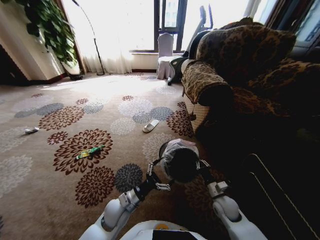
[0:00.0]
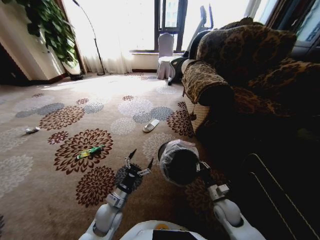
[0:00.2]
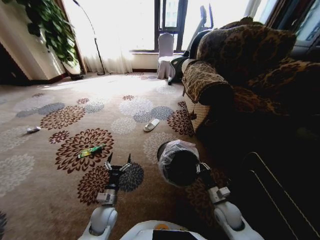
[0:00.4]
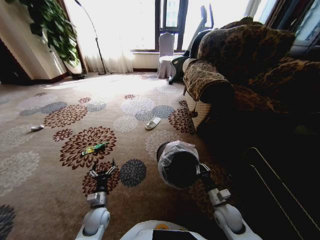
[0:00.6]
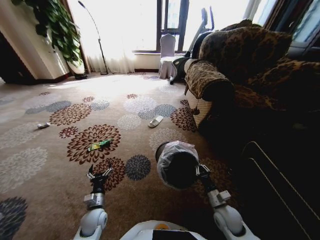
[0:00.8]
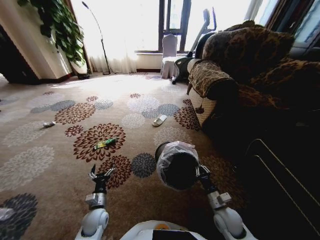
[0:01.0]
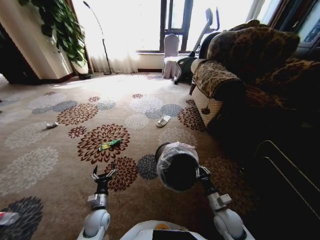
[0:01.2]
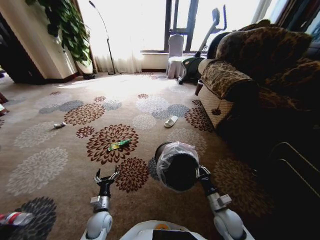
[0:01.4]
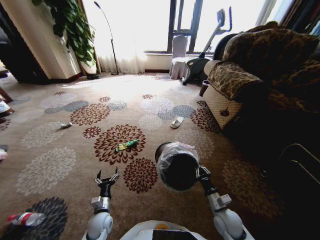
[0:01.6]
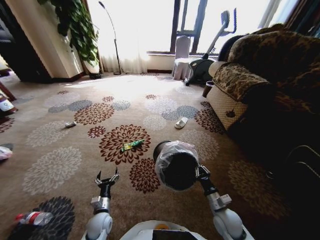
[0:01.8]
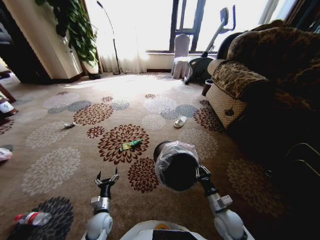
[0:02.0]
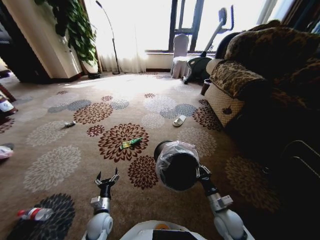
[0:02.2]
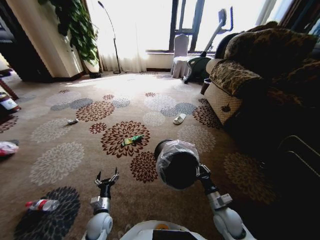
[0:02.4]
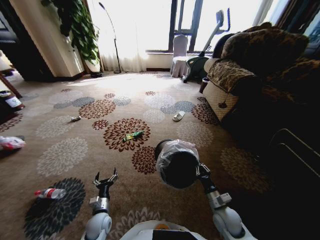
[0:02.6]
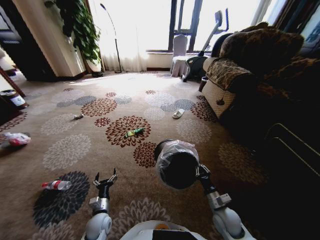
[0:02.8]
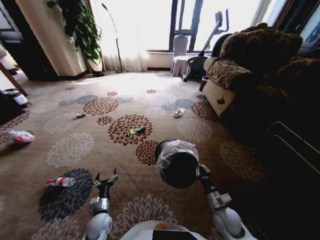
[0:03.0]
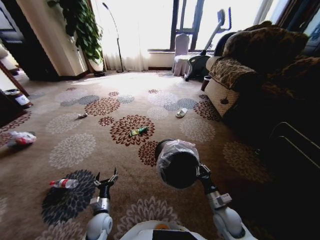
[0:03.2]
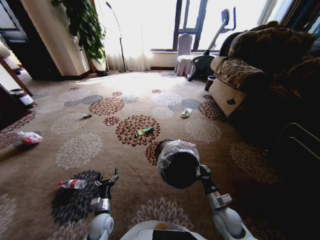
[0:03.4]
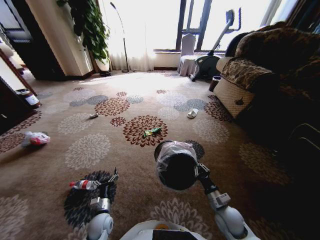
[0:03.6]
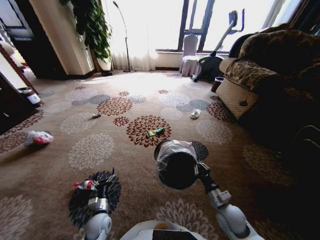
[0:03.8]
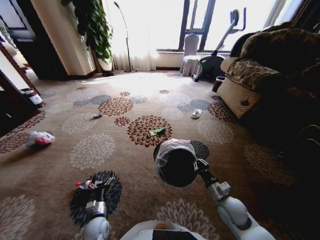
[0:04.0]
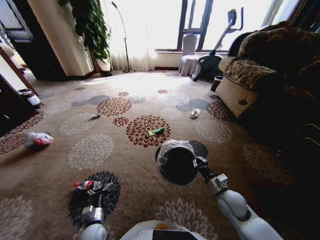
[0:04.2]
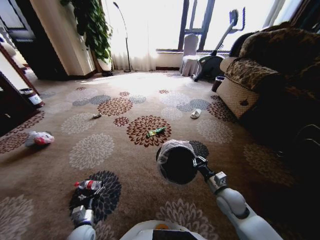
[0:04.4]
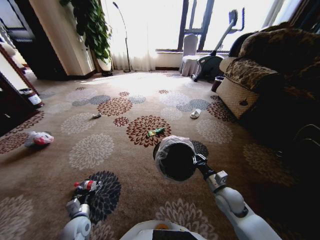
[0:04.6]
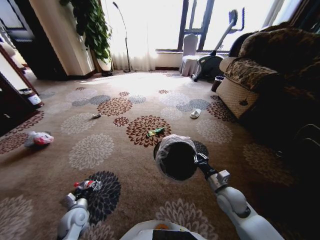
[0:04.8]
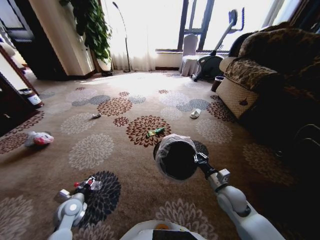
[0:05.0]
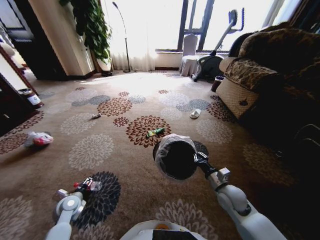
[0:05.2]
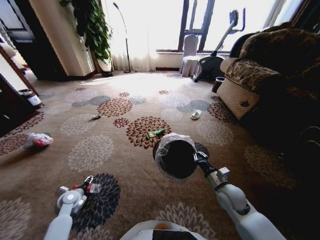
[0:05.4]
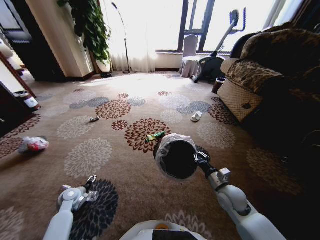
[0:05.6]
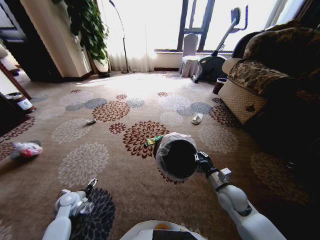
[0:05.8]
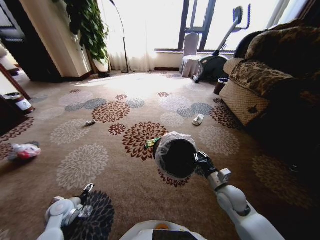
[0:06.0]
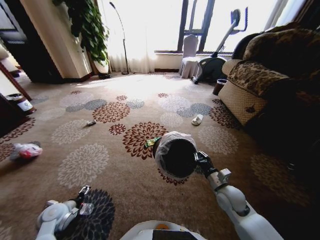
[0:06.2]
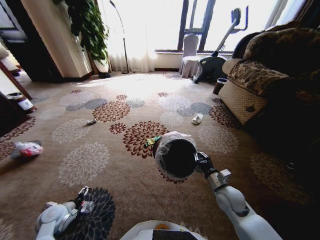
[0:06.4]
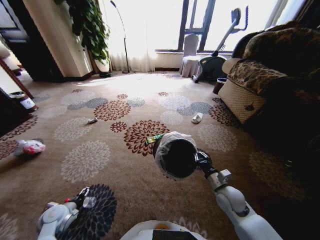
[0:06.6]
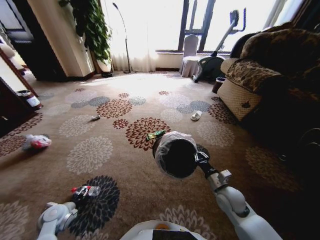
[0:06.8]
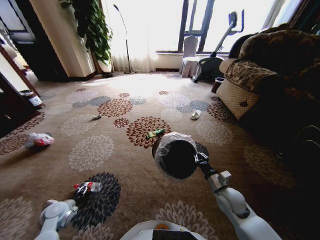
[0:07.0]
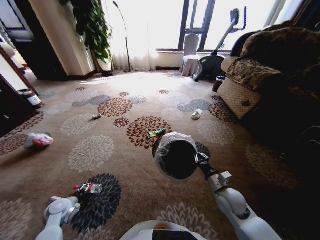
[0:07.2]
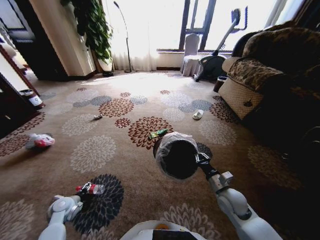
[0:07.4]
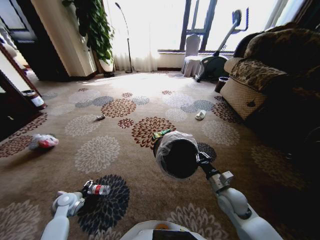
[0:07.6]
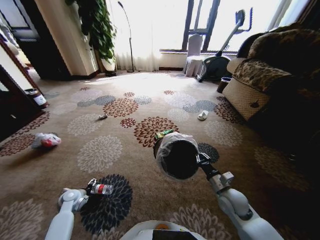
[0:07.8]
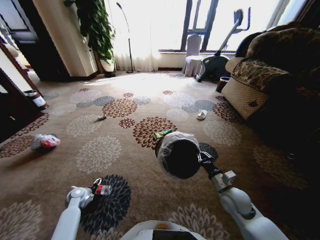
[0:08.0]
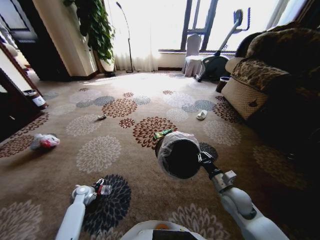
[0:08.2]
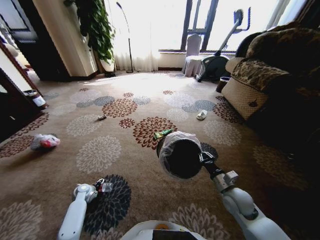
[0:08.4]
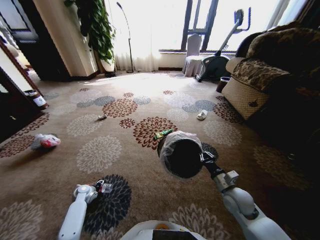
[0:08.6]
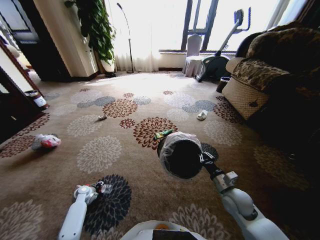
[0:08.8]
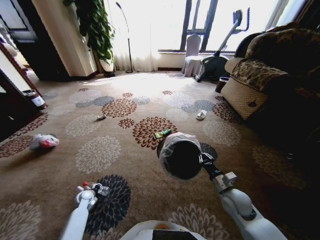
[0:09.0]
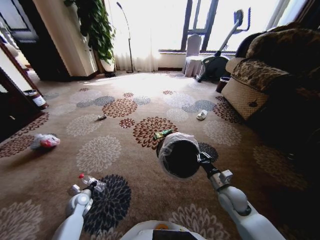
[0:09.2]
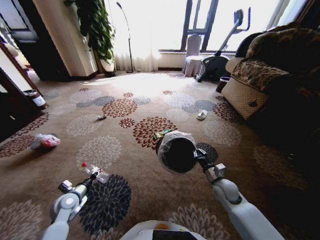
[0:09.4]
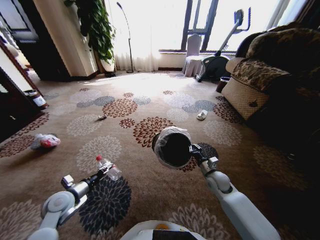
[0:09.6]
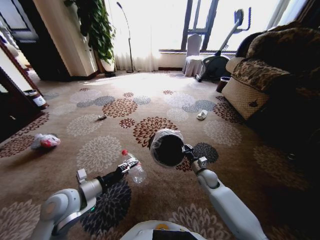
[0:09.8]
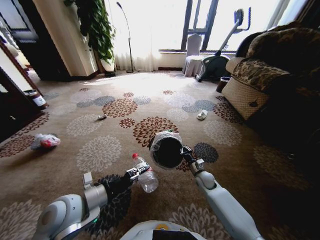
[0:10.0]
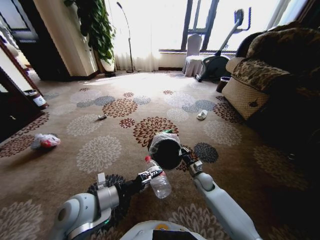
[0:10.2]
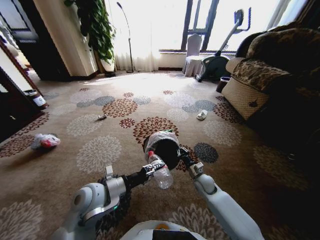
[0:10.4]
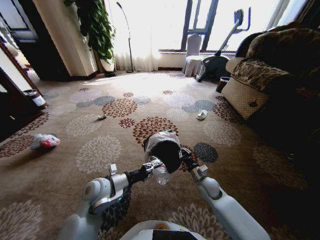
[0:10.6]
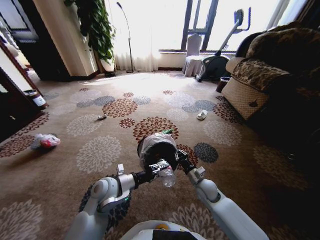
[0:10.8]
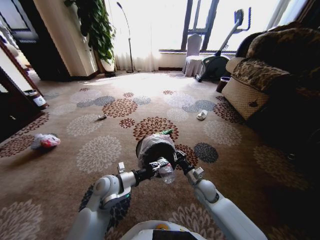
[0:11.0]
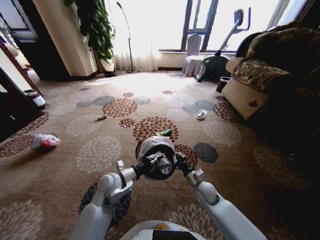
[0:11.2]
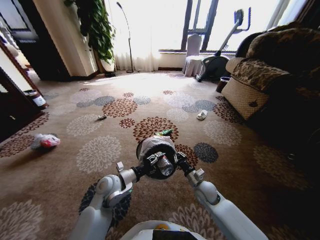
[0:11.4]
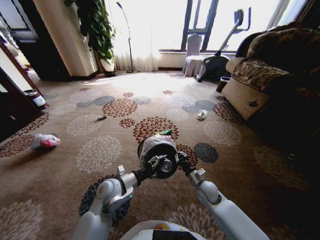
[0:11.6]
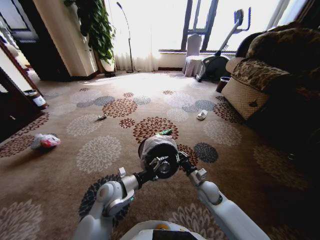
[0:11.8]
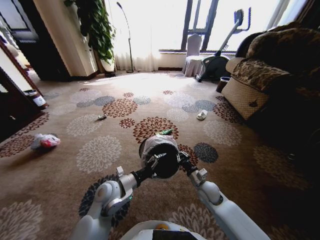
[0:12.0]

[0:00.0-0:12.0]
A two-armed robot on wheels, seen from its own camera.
Task of the whole recording: Pick up the trash from the ground and place it into the trash bin.
0:00.0 to 0:01.6: The left gripper travels to the left and downward by about 15 cm. The right gripper moves backward, roughly 5 cm.
0:03.0 to 0:04.4: The right gripper goes approximately 10 cm upward and forward. Meanwhile the left gripper changes place by about 5 cm.
0:04.4 to 0:06.0: The left gripper moves to the left, forward and upward, roughly 15 cm.
0:07.6 to 0:09.0: The left gripper goes approximately 10 cm downward, and closes its fingers.
0:09.0 to 0:10.4: The left gripper shifts about 35 cm upward and to the right, while the right gripper shifts about 15 cm forward, downward and to the left.
0:10.4 to 0:12.0: The left gripper travels downward by about 5 cm, and opens.

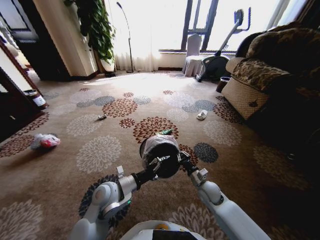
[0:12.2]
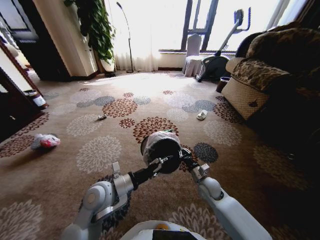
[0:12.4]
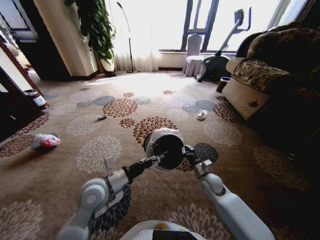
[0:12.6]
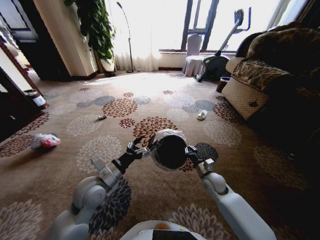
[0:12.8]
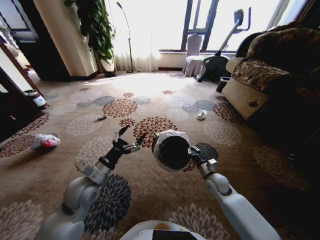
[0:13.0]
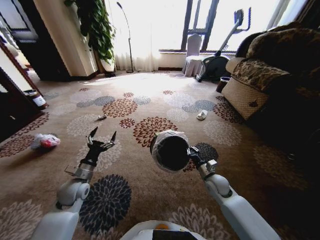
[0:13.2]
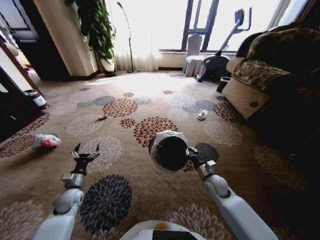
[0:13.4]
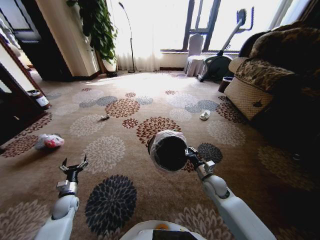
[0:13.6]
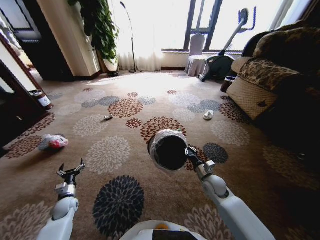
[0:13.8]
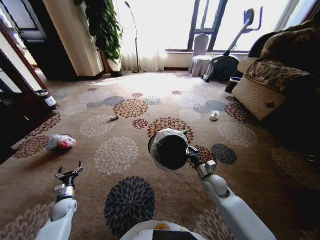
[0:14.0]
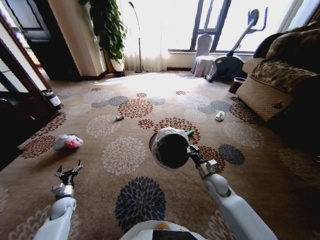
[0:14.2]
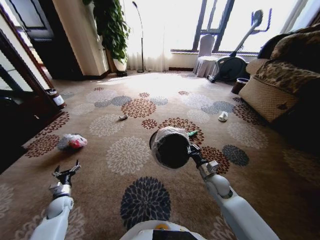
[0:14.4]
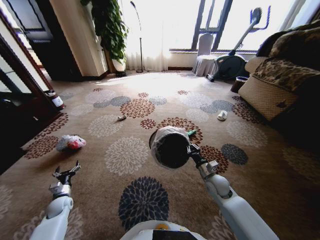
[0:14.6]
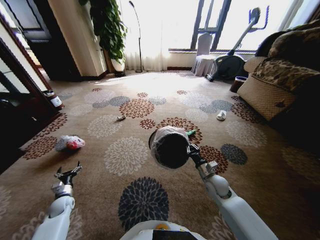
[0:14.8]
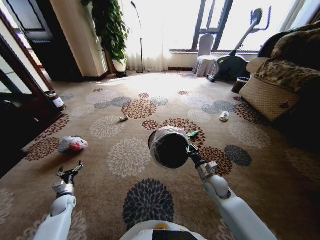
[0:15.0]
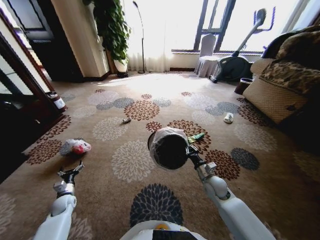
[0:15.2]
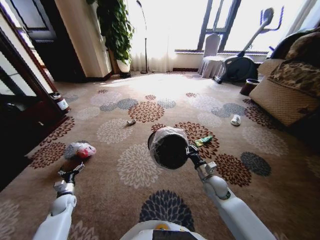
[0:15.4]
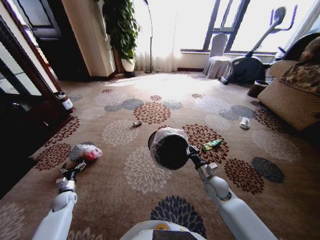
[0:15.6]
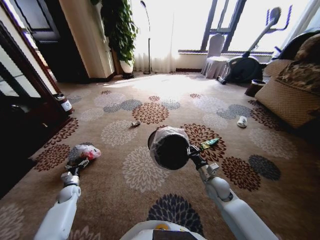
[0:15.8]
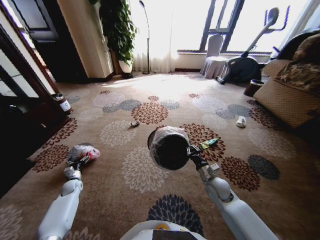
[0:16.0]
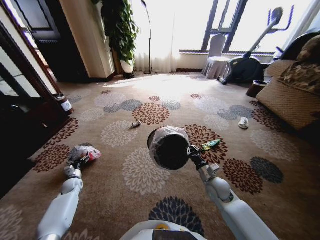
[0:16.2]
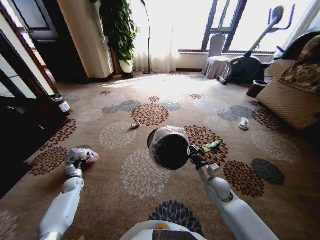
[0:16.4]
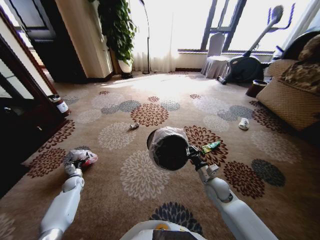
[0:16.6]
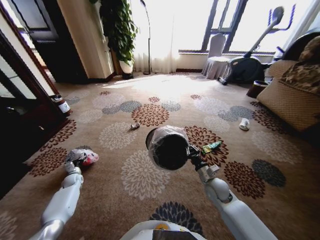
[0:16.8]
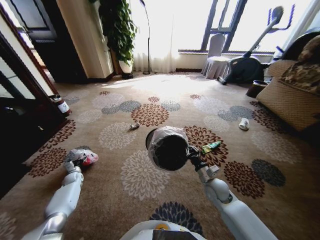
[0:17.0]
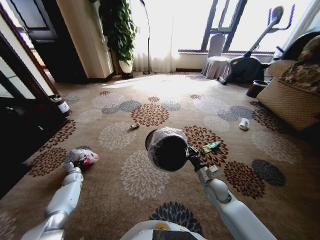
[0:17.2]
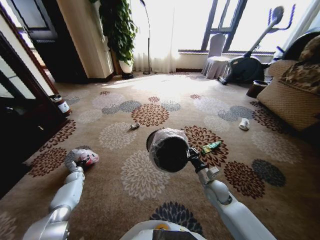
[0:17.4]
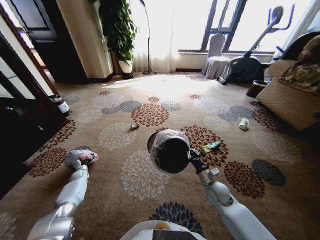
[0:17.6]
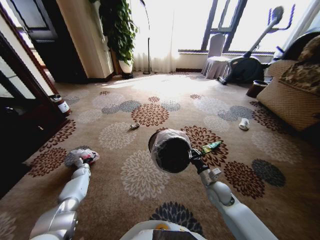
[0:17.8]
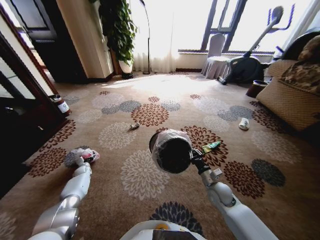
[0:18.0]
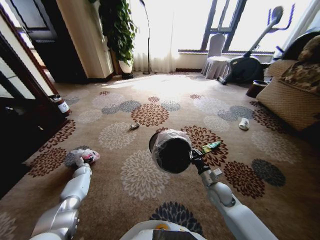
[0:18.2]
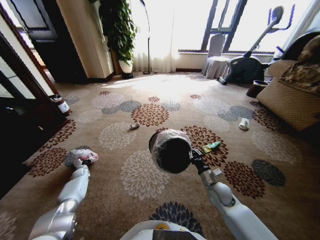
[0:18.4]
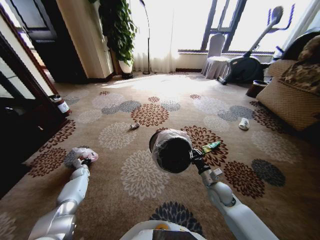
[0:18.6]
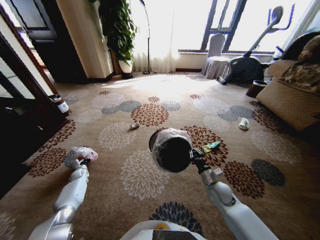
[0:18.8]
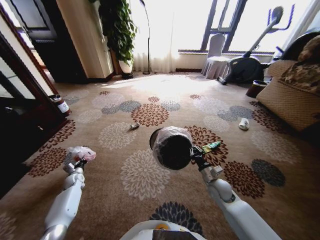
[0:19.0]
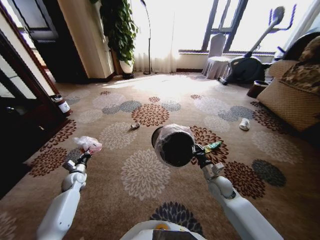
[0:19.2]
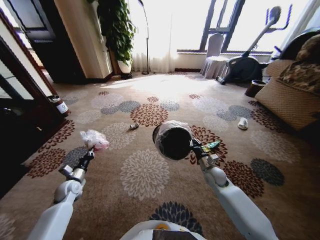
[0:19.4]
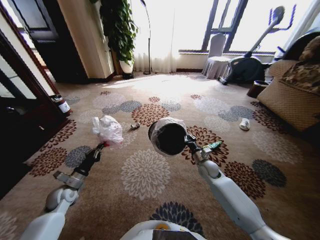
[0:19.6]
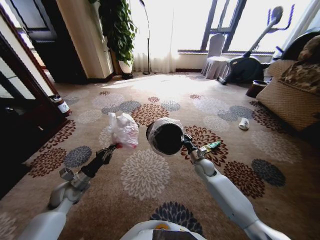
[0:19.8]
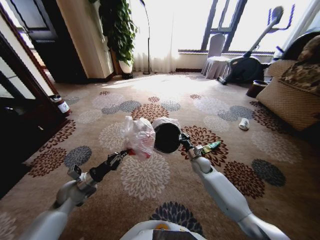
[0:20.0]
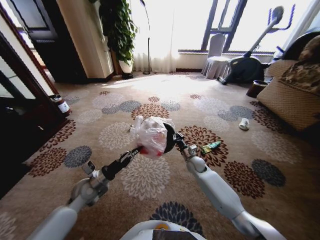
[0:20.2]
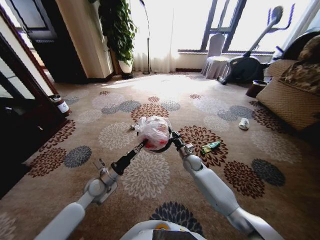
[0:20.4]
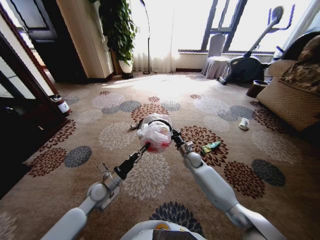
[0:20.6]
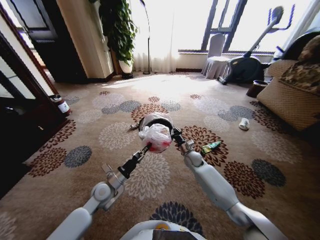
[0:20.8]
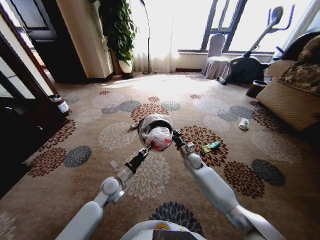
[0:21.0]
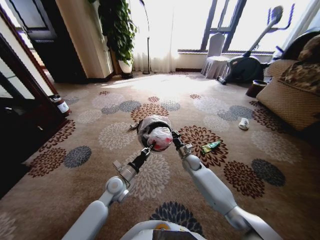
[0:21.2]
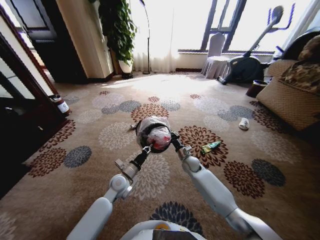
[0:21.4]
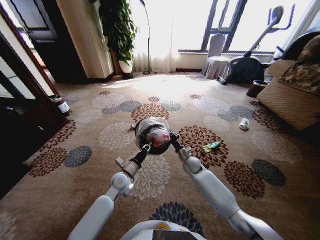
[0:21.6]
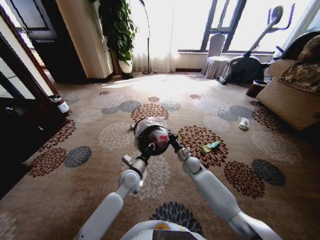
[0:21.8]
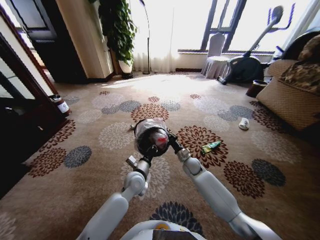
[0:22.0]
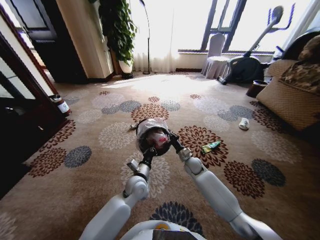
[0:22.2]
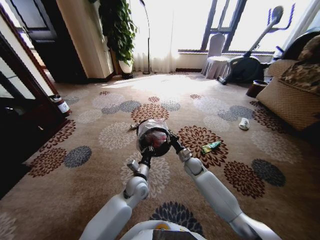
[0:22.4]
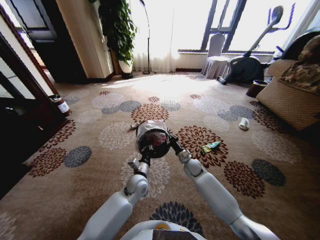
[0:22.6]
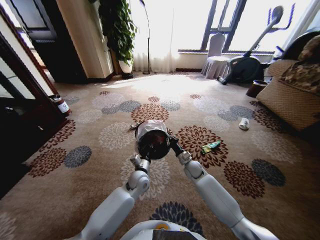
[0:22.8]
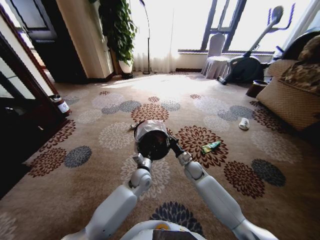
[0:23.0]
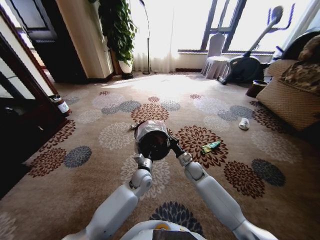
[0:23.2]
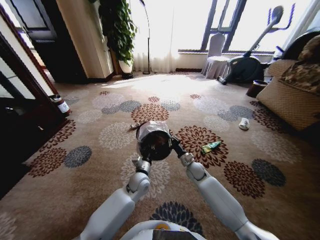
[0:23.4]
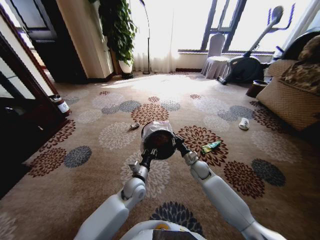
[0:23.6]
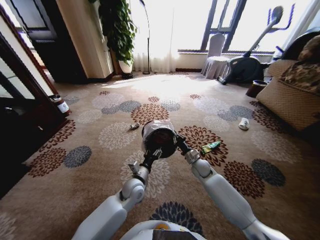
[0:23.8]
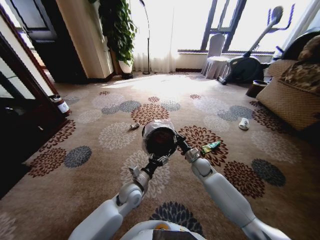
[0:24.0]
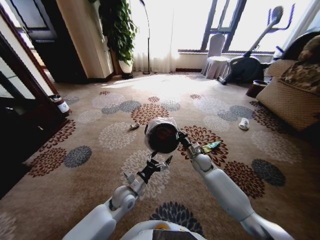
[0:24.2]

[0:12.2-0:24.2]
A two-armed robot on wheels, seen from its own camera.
Task of the whole recording: Pick up the trash from the ground and place it into the trash bin.
0:12.2 to 0:13.8: The left gripper travels to the left and downward by approximately 35 cm.
0:15.2 to 0:16.6: The left gripper shifts roughly 10 cm forward.
0:16.6 to 0:18.2: The left gripper travels forward by approximately 5 cm, and closes up.
0:18.2 to 0:19.8: The left gripper heads upward, backward and to the right, covering approximately 30 cm, and closes, while the right gripper shifts roughly 15 cm forward.
0:19.8 to 0:21.2: The right gripper is displaced to the left by some 5 cm, while the left gripper heads to the right, covering approximately 20 cm.
0:21.2 to 0:22.6: The left gripper goes about 10 cm to the right.
0:22.6 to 0:24.2: The right gripper changes place by some 5 cm. Meanwhile the left gripper goes some 5 cm to the left, and opens up.
